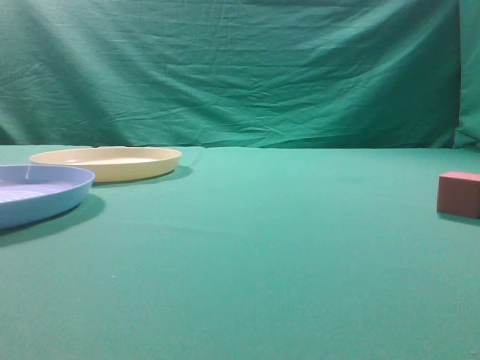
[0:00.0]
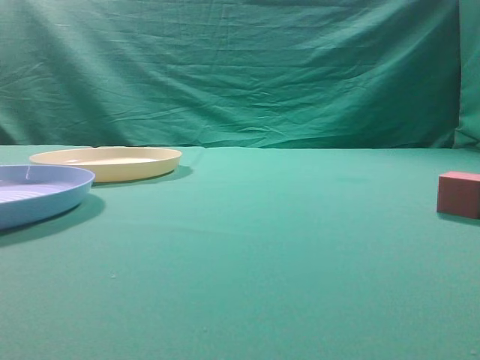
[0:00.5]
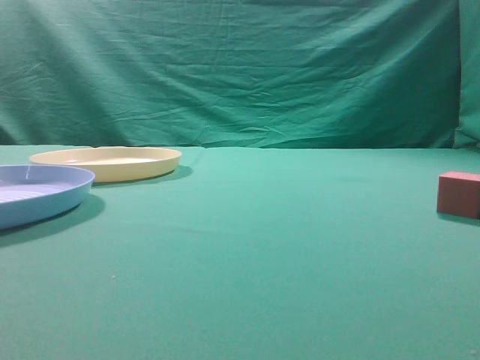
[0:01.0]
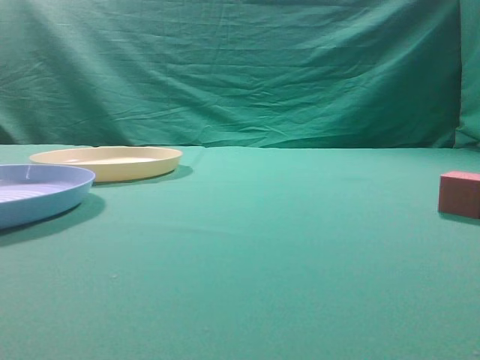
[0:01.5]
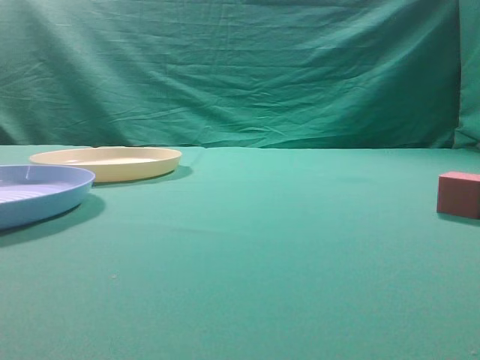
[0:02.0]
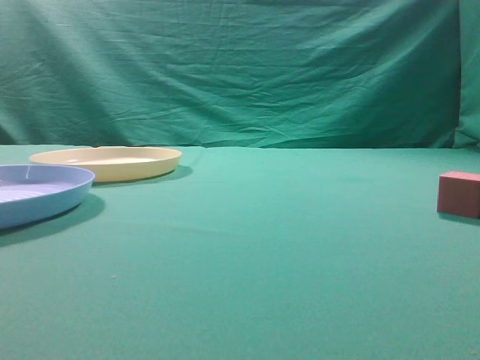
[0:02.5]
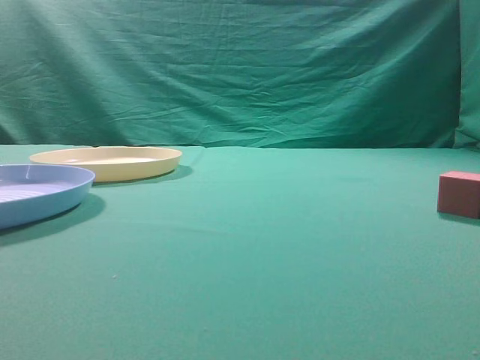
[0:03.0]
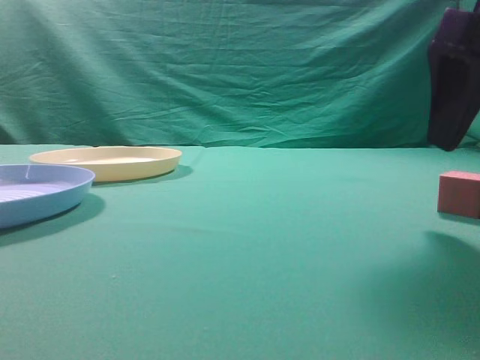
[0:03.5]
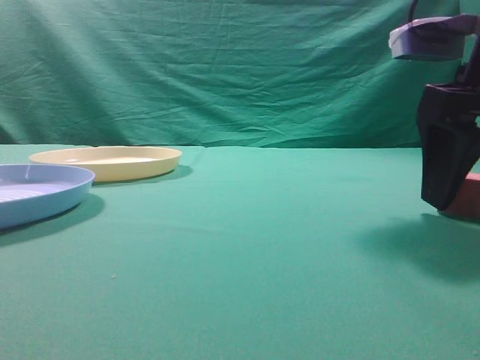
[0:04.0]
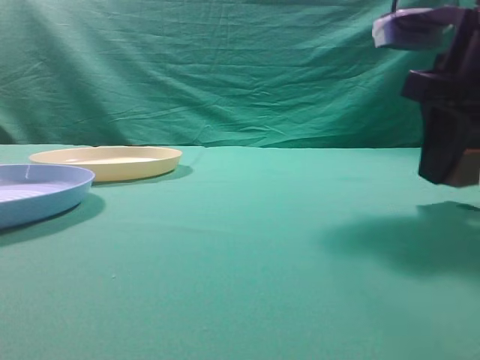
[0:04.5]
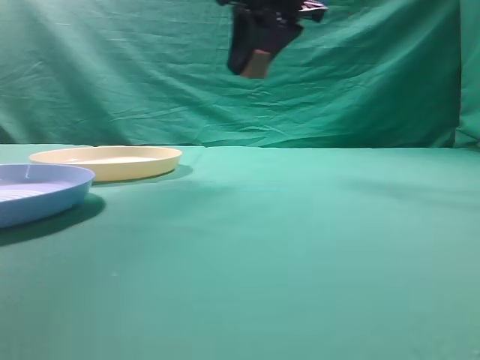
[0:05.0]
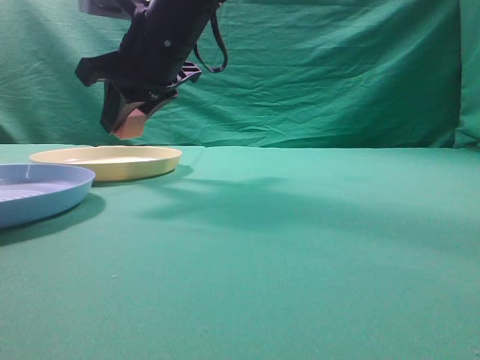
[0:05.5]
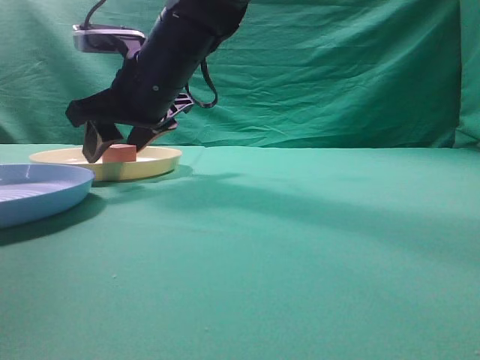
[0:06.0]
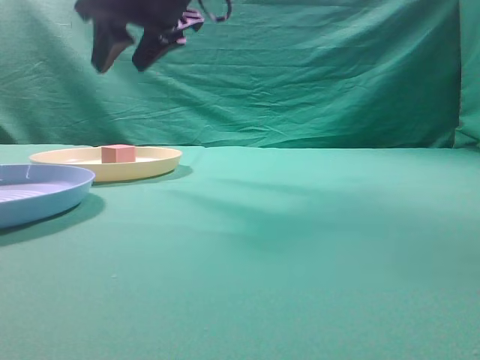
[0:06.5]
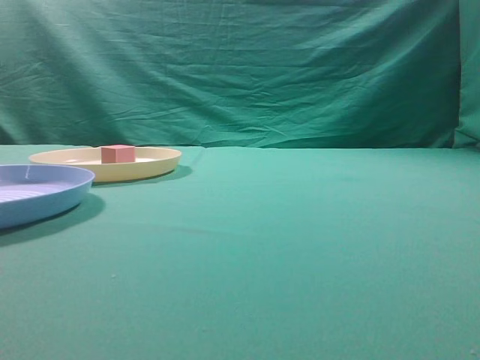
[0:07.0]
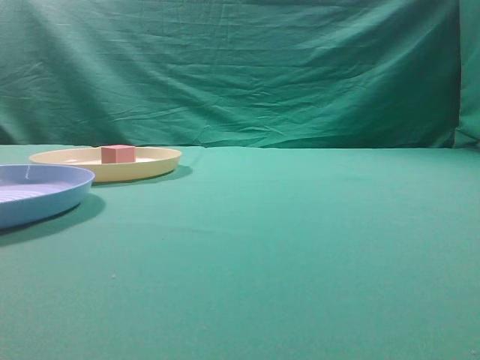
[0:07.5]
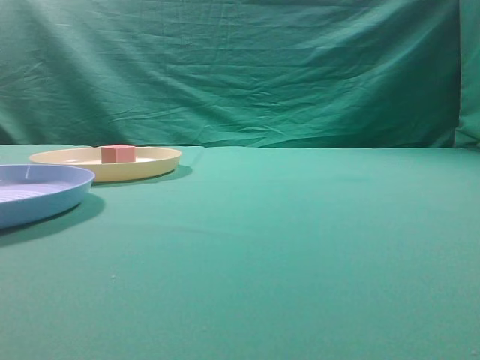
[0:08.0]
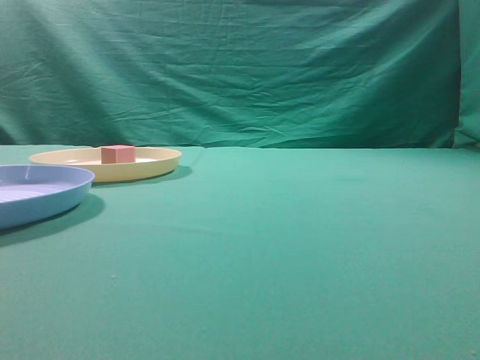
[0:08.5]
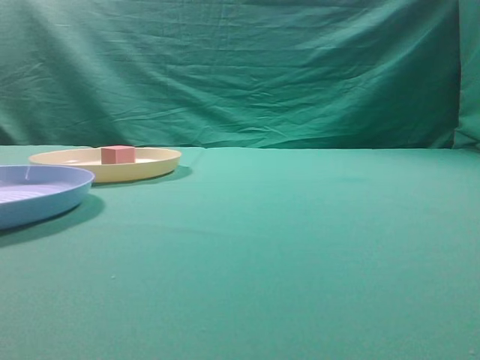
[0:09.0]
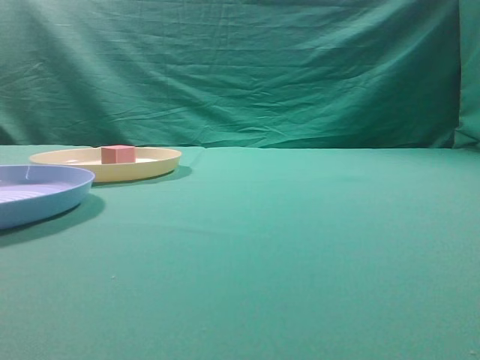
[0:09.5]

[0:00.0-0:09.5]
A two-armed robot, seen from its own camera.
Task of the whole recording: pick up the cube block from the table and put it on the plate.
Step, 0:00.0 to 0:04.5: Grasp the small cube on the table.
Step, 0:05.0 to 0:06.0: Place it into the yellow plate.
0:02.0 to 0:04.0: The right gripper moves forward and to the left, about 20 cm, and opens up.
0:04.0 to 0:05.5: The right gripper is displaced to the left and forward by about 30 cm, and closes.
0:05.5 to 0:07.5: The right gripper goes about 40 cm upward, to the right and backward, and closes its fingers.
